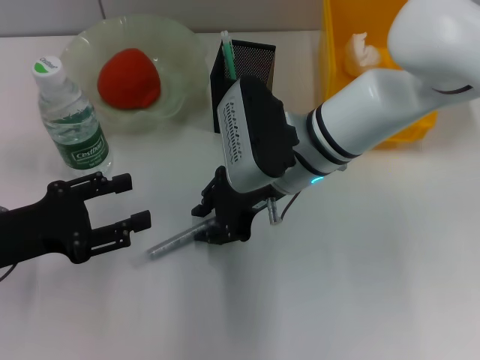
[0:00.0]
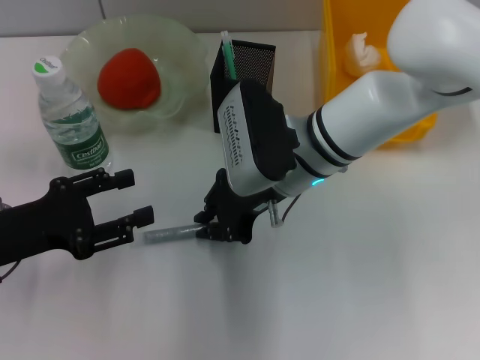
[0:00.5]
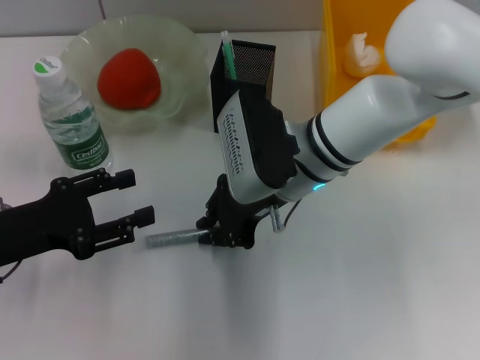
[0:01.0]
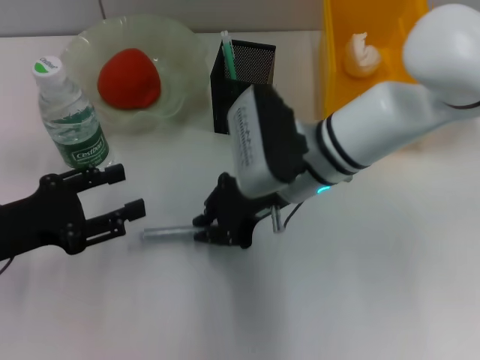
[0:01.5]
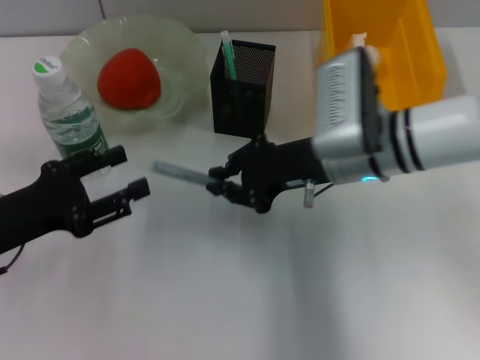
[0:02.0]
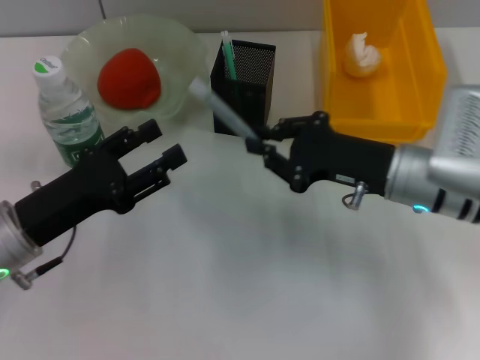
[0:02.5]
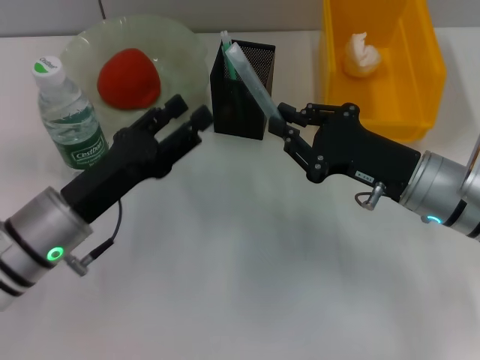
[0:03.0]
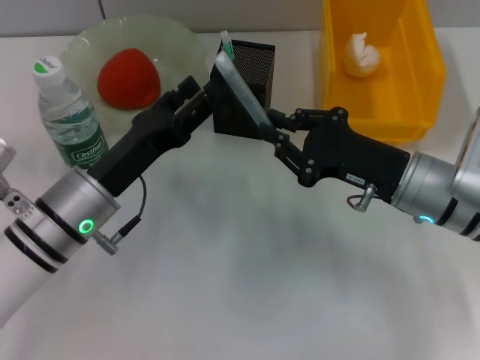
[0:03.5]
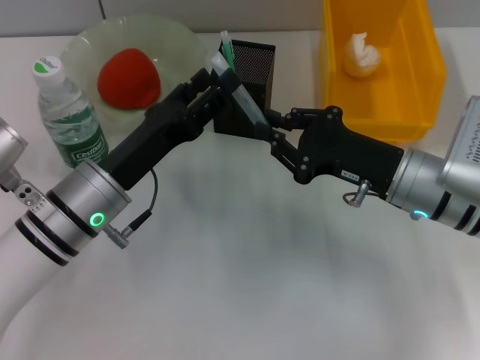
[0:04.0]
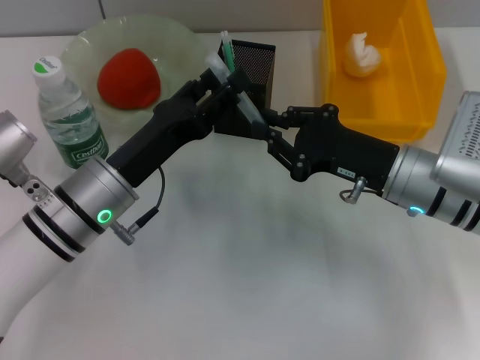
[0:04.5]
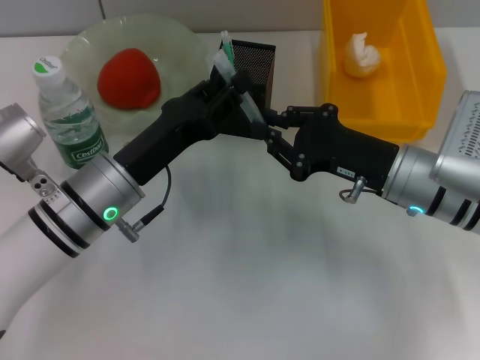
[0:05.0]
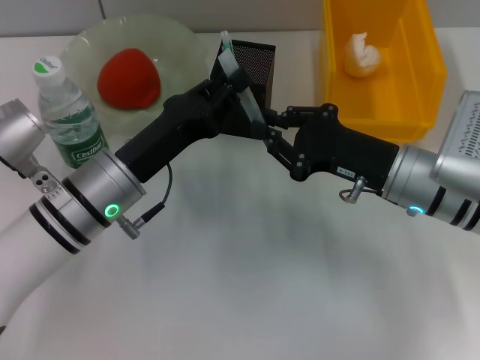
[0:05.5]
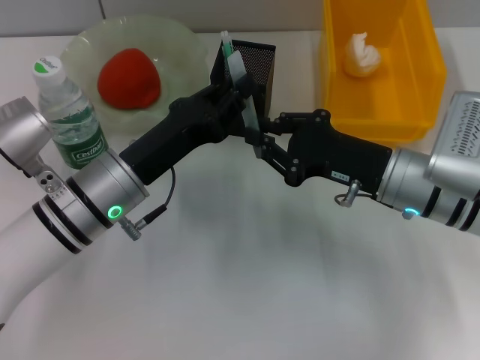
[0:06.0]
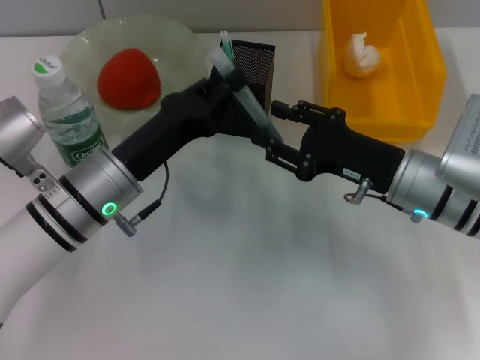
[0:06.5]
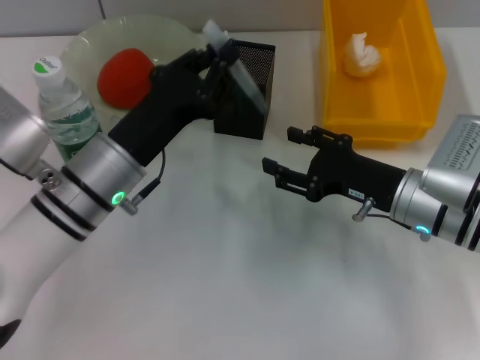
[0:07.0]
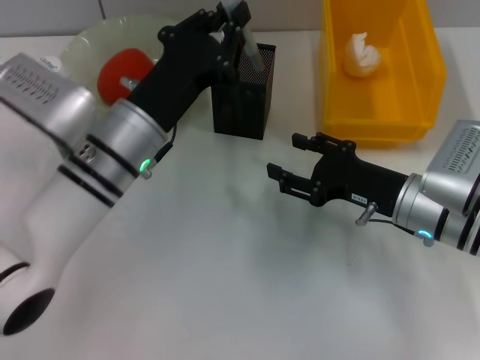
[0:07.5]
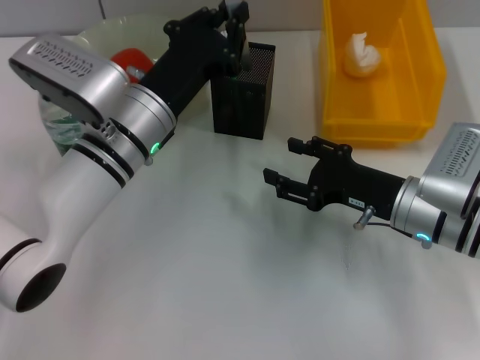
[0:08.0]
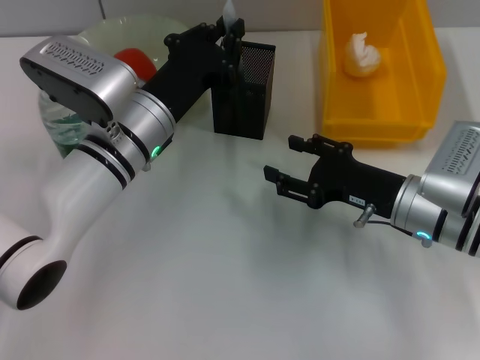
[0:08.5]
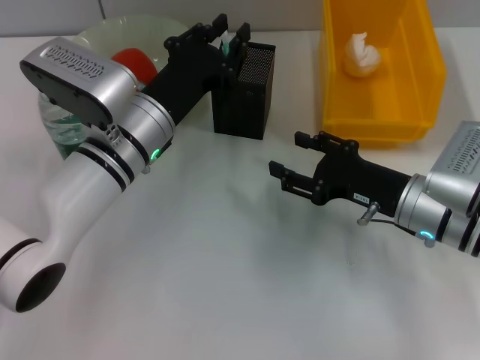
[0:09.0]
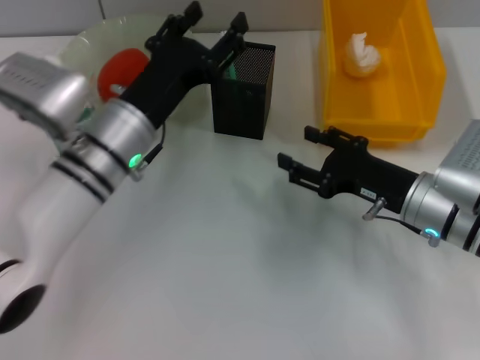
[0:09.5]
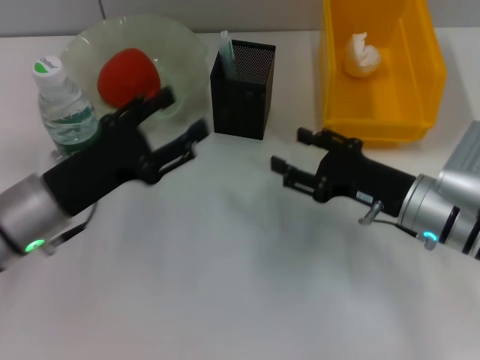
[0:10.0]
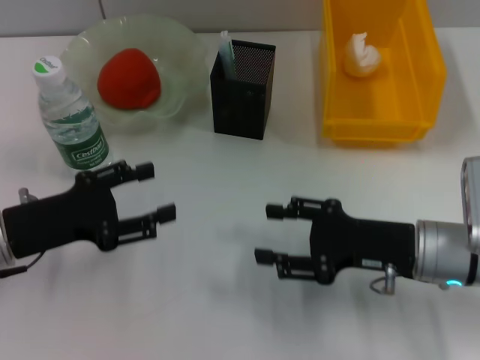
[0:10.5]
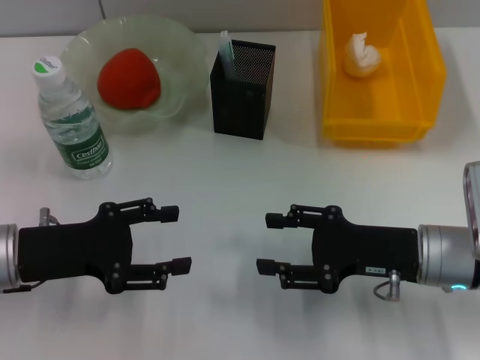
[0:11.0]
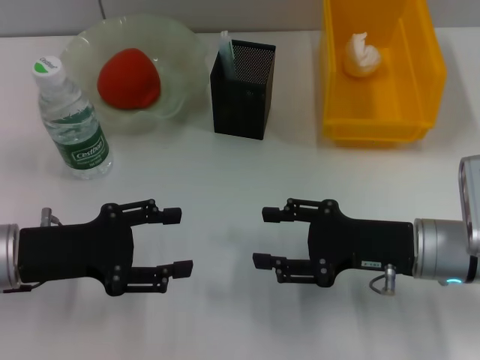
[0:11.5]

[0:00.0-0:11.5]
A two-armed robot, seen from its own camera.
Step, 1.0 to 6.5 s: Pass the gray glue from the right hand to the left hand.
Step, 7.0 to 9.0 s: Place the gray glue into the pen holder with the left hand.
0.0 to 2.0 s: The right gripper travels to the right by some 5 cm.
2.0 to 4.0 s: The left gripper travels to the right by some 15 cm; the right gripper is displaced to the right by roughly 5 cm.
4.0 to 6.0 s: The left gripper closes its fingers.
6.0 to 7.5 s: The right gripper opens its fingers.
7.5 to 9.5 s: The left gripper opens its fingers.
9.5 to 11.5 s: The left gripper goes approximately 15 cm to the left and backward.

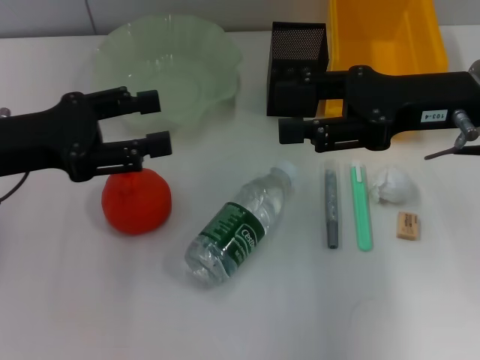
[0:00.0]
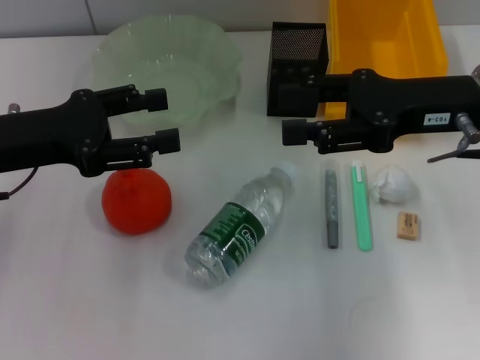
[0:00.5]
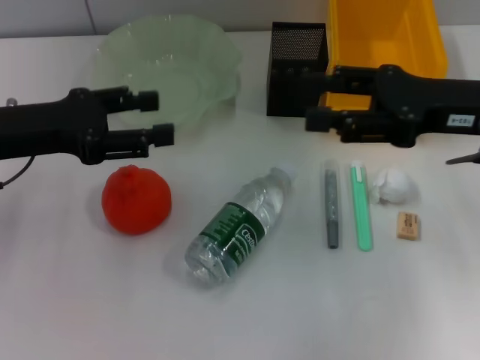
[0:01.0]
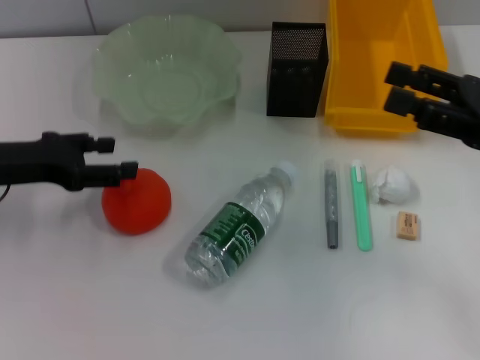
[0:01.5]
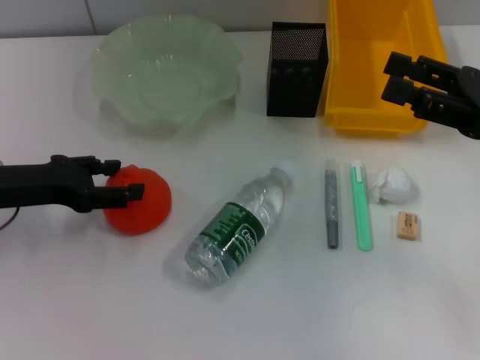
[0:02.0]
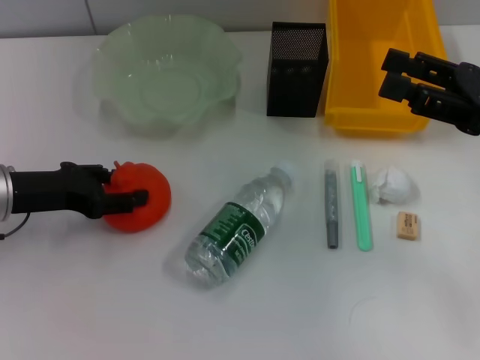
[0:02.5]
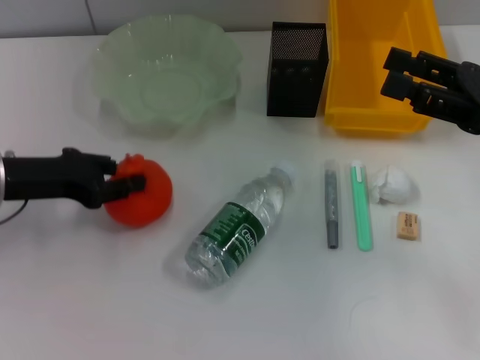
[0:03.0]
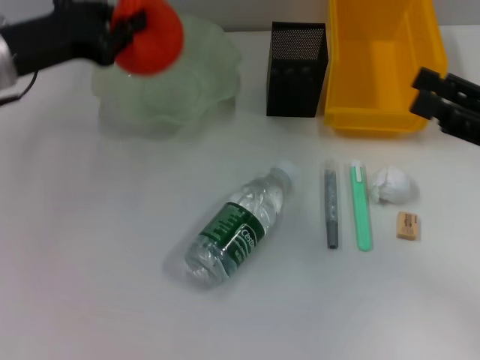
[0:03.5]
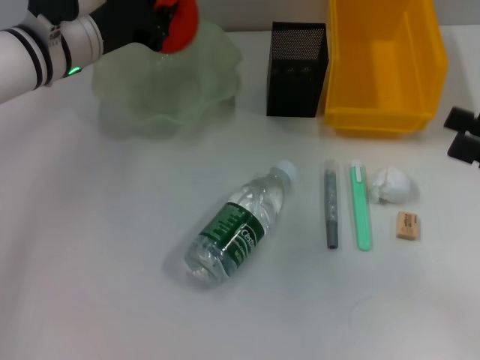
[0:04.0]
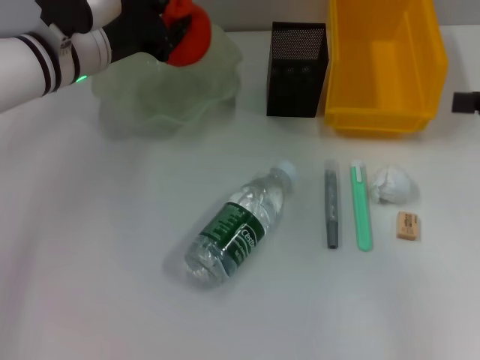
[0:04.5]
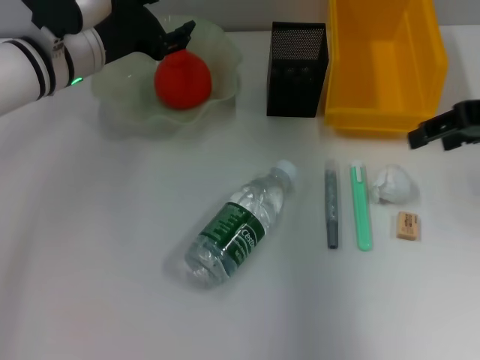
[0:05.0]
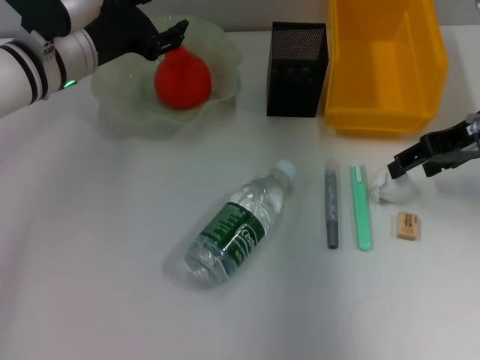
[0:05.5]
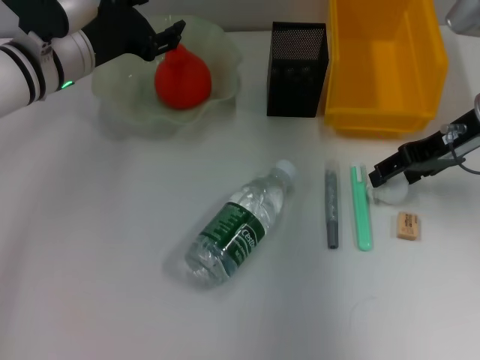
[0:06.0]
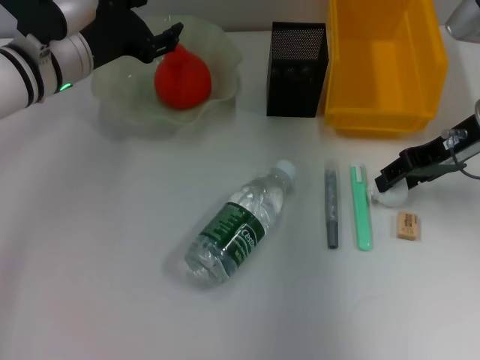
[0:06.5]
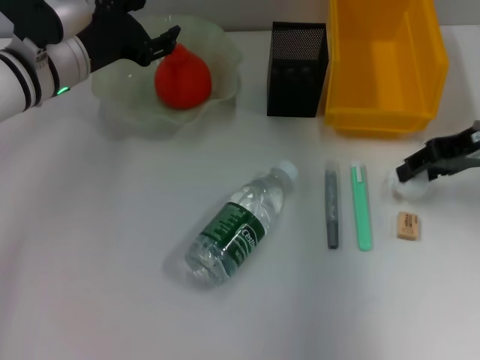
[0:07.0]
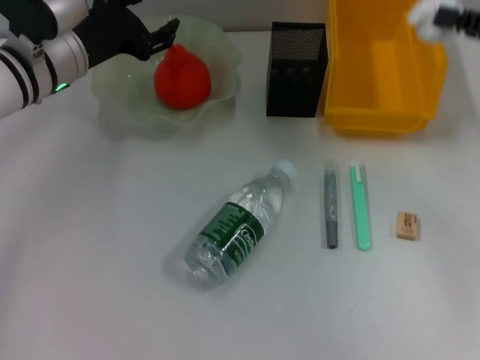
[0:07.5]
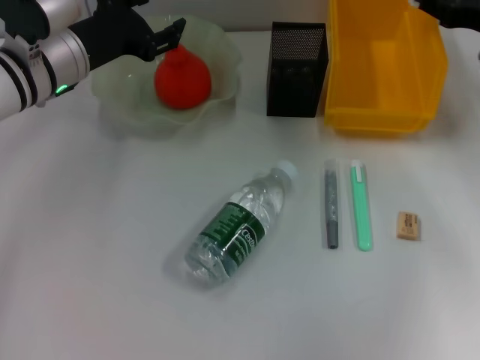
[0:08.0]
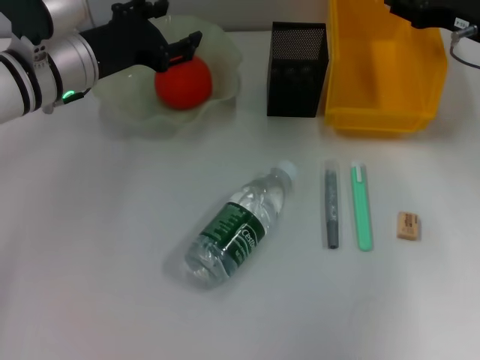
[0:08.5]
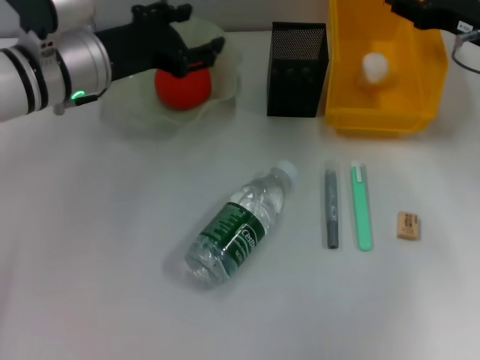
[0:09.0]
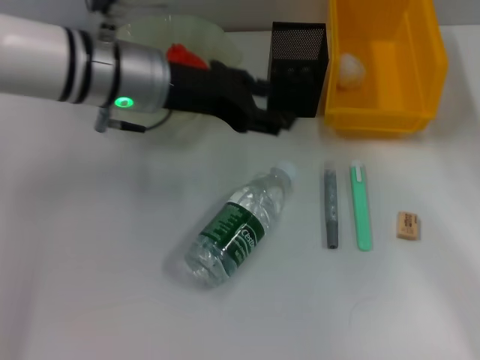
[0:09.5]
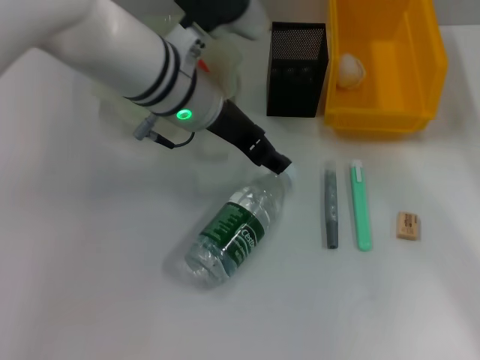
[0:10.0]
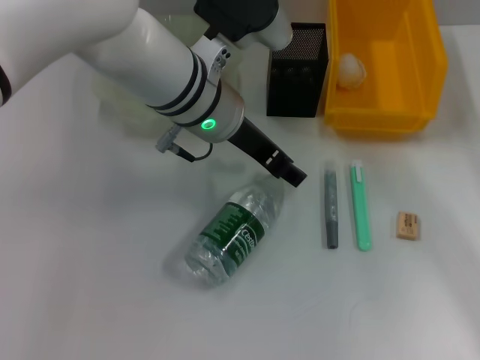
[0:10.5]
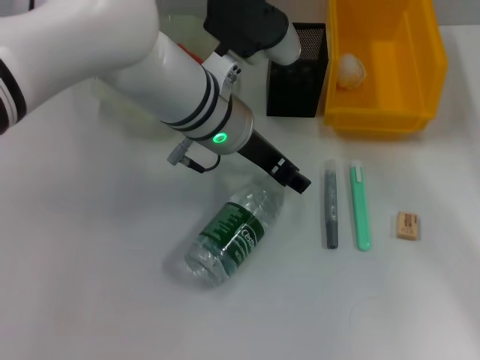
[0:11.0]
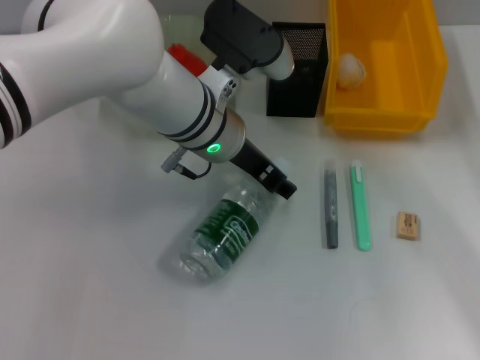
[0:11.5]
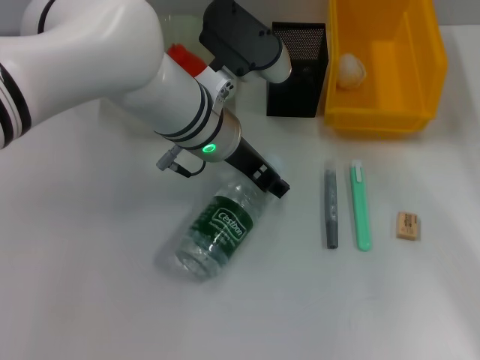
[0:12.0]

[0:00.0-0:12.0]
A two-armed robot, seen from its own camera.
Step, 0.0 to 2.5 s: Grab the orange with the left hand.
Step, 3.0 to 4.5 s: Place the orange into the fruit bowl with the left hand.
Step, 5.0 to 6.5 s: Grab the paper ball with the right hand.
Step, 7.0 to 9.0 s: Place the paper ball into the trash can with the right hand.
0.0 to 2.0 s: The right gripper travels to the right by approximately 10 cm, while the left gripper shifts roughly 5 cm downward.
2.0 to 4.0 s: The right gripper heads backward, covering approximately 5 cm. The left gripper travels forward and to the right by about 15 cm, and closes up.
4.0 to 6.0 s: The right gripper heads forward and to the left, covering approximately 15 cm. Meanwhile the left gripper opens up.
6.0 to 8.0 s: The right gripper travels to the right by some 5 cm.
8.0 to 10.0 s: The left gripper heads to the right, covering some 15 cm. Meanwhile the right gripper shifts approximately 10 cm backward.
10.0 to 12.0 s: There are only small adjustments of the grippers.

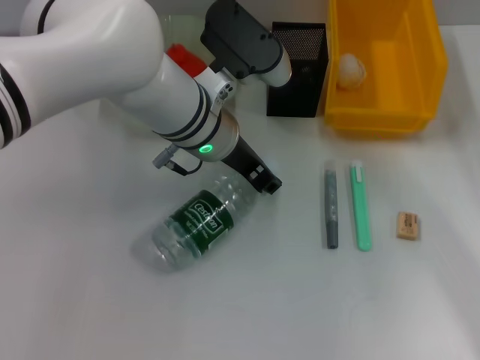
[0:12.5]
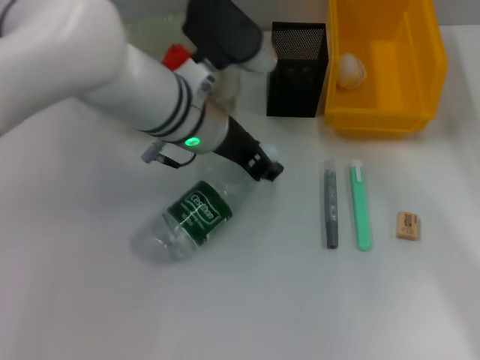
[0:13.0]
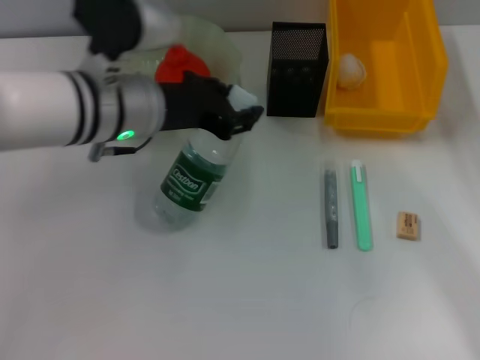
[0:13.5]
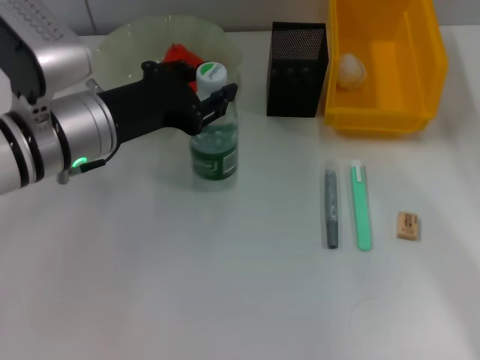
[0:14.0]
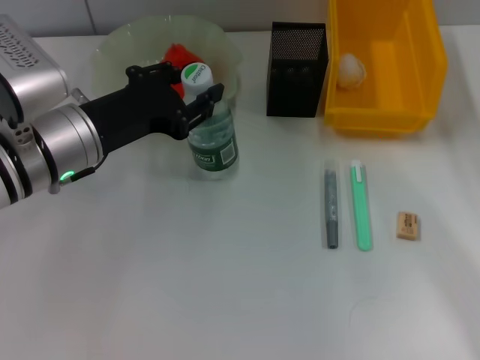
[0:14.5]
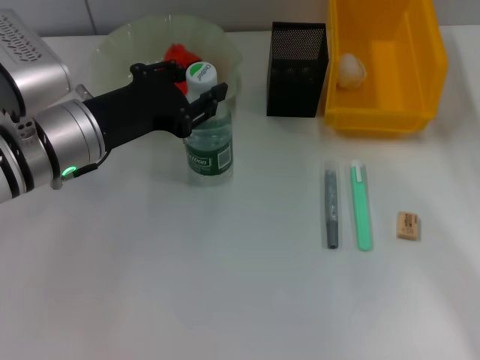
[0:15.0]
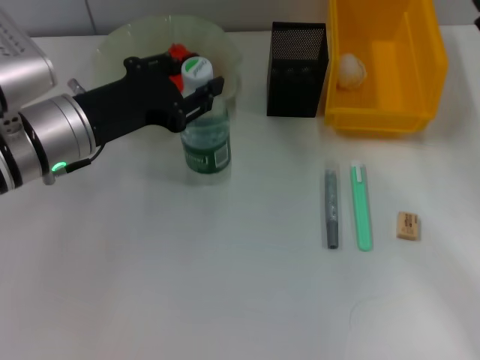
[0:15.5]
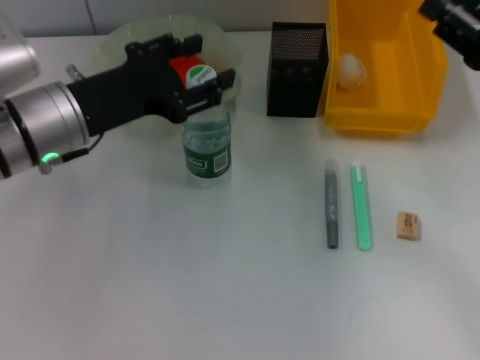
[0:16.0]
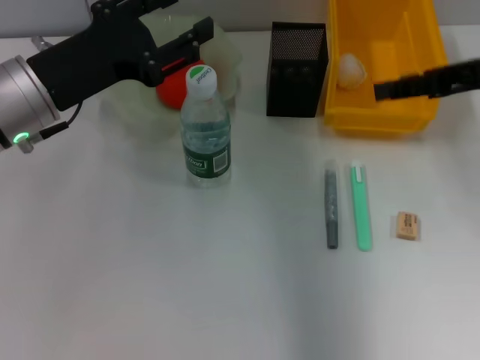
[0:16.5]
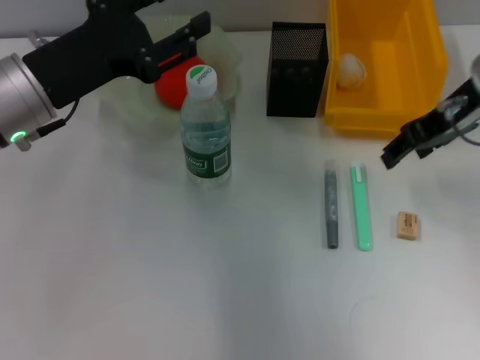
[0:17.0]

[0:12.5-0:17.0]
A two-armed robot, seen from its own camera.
Step, 13.0 to 16.0 s: Place the water bottle on the table with the left hand.
12.5 to 14.5 s: The left gripper goes approximately 15 cm to the left and backward.
14.5 to 17.0 s: The left gripper opens its fingers, while the right gripper travels upward, to the left and forward by roughly 15 cm.
